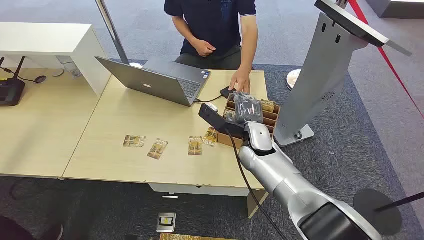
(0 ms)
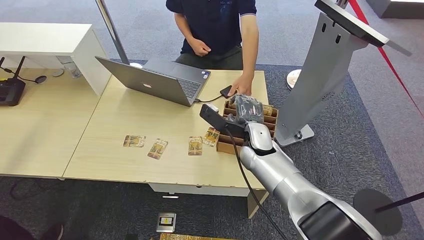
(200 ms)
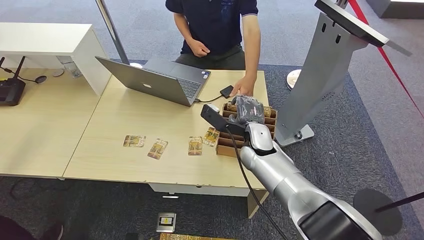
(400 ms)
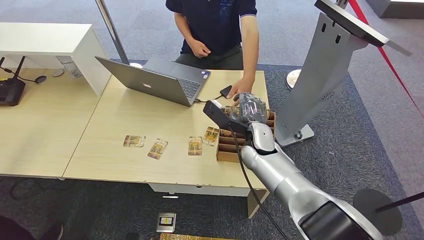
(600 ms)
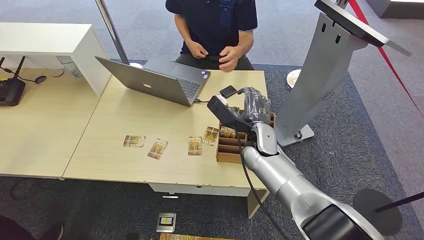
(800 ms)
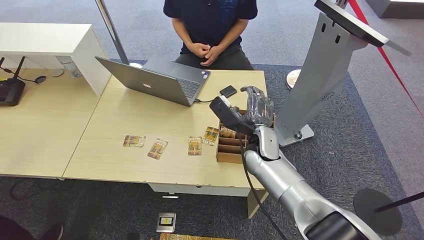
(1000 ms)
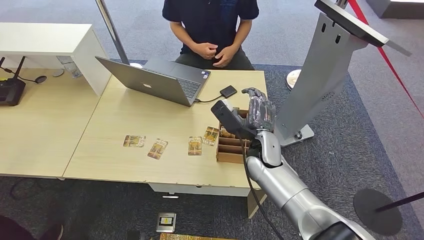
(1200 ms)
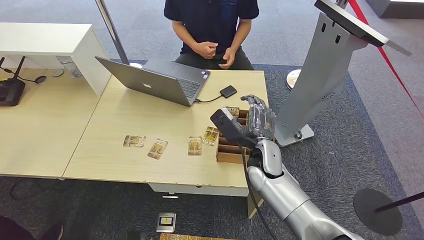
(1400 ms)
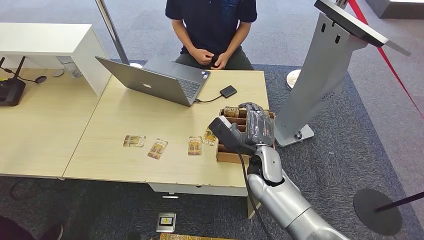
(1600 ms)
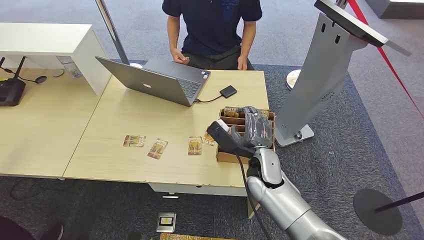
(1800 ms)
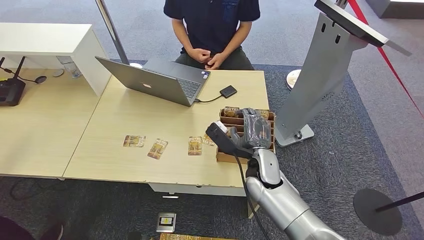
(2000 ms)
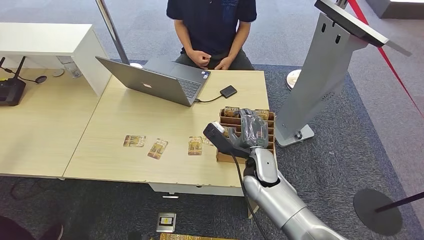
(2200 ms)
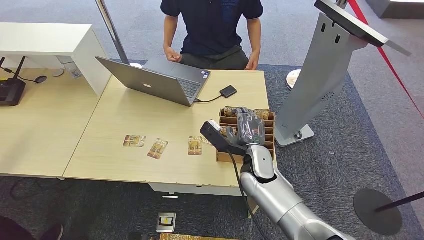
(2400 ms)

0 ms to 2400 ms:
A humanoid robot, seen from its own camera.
Step, 0 ms to 2400 ms: Pick up the key card from the card box.
1200 ms to 2400 ms: The hands stay close to where they were, moving slightly.
